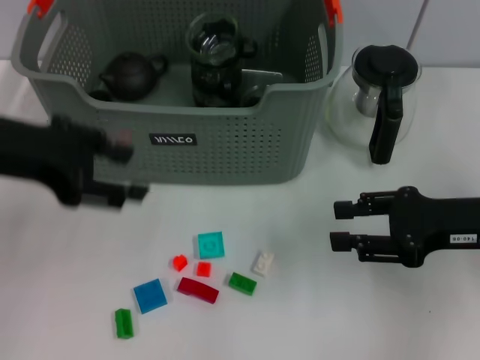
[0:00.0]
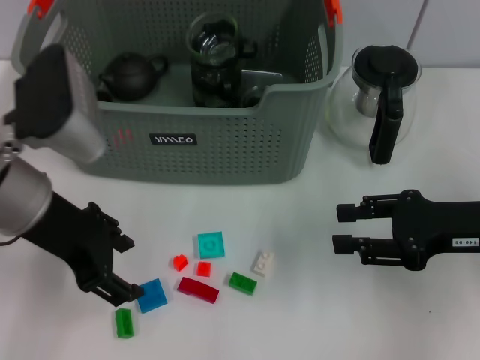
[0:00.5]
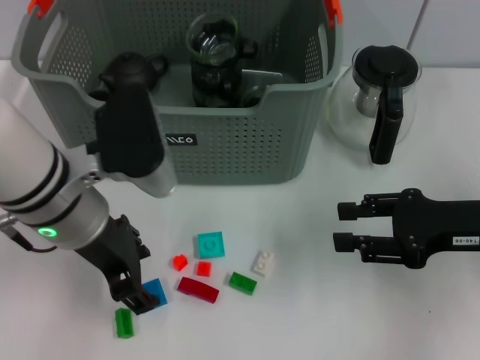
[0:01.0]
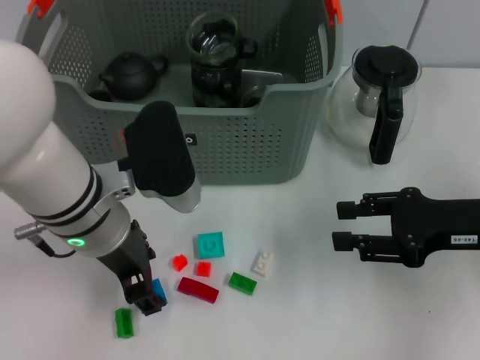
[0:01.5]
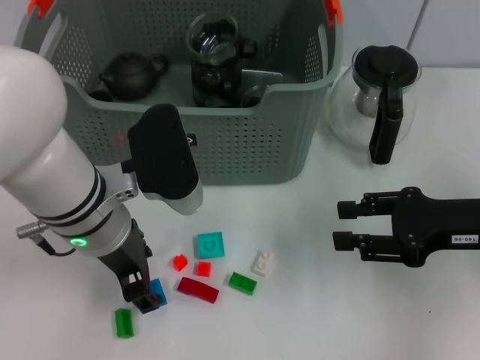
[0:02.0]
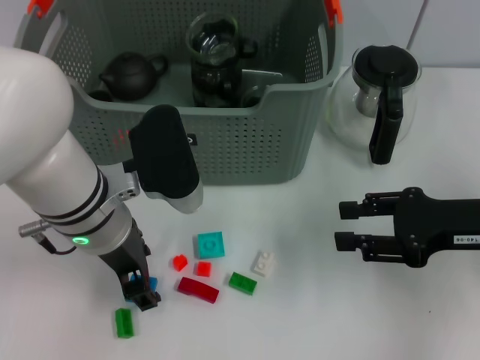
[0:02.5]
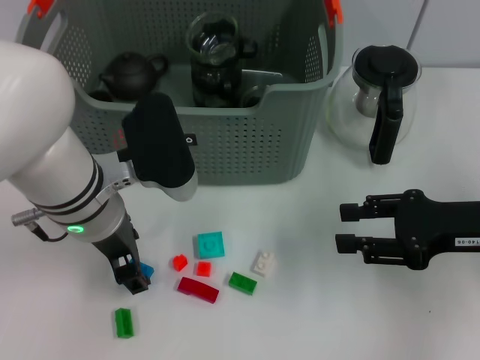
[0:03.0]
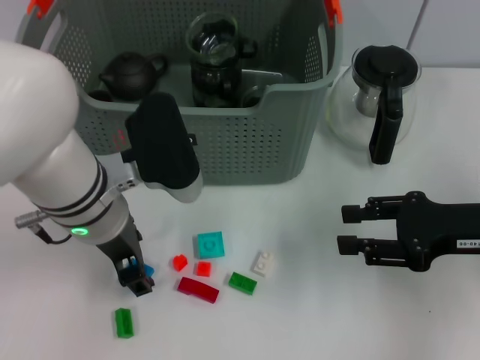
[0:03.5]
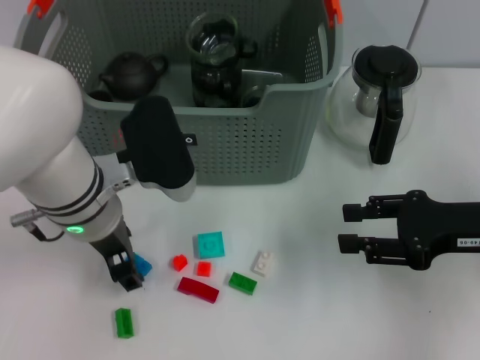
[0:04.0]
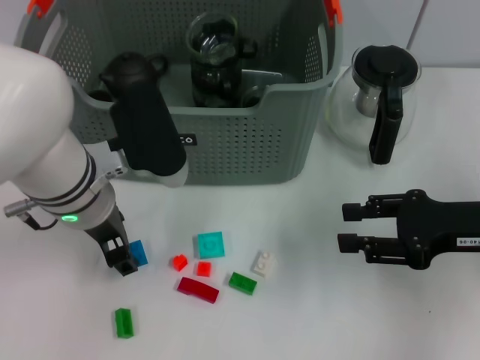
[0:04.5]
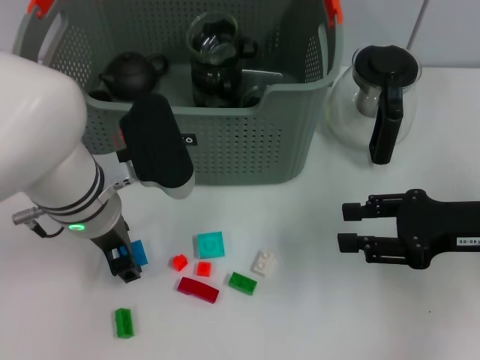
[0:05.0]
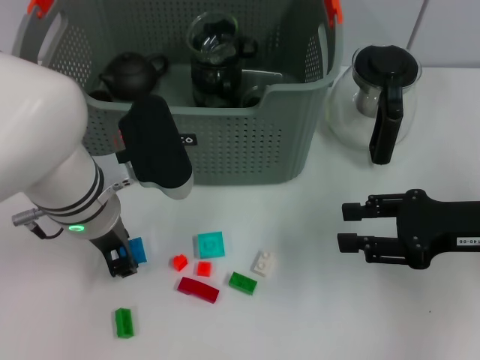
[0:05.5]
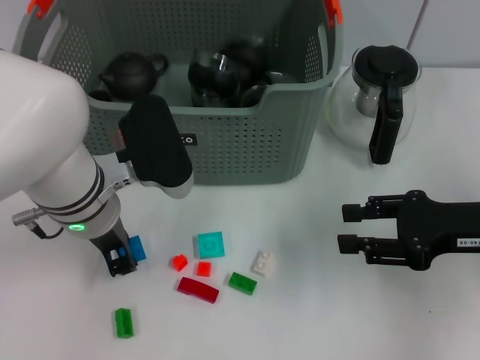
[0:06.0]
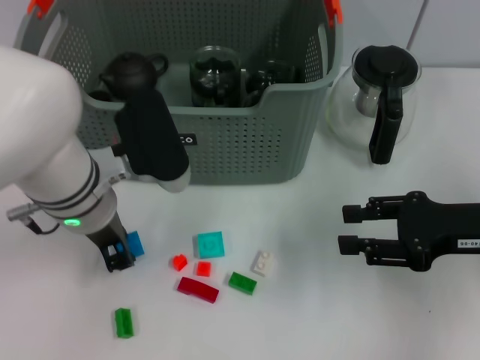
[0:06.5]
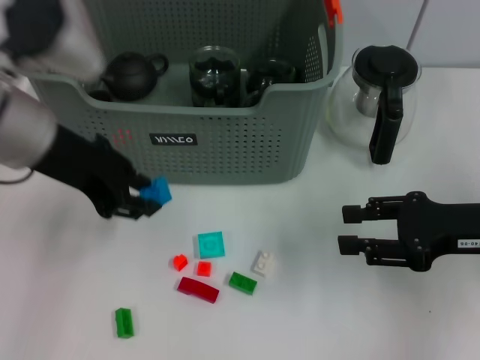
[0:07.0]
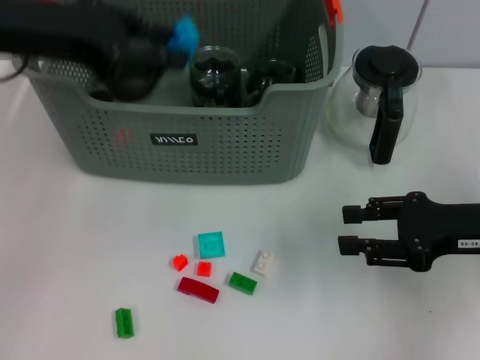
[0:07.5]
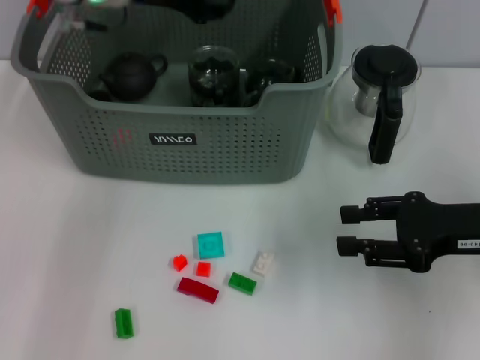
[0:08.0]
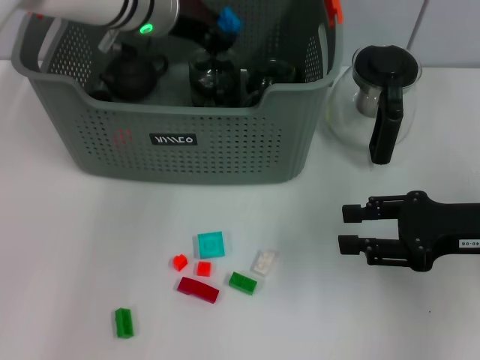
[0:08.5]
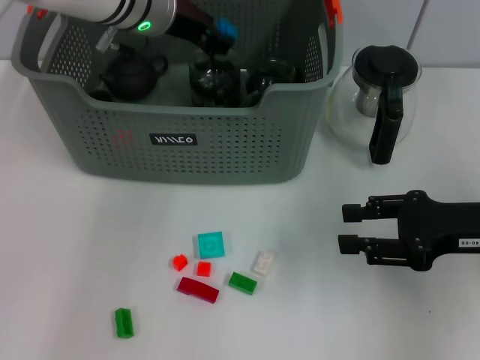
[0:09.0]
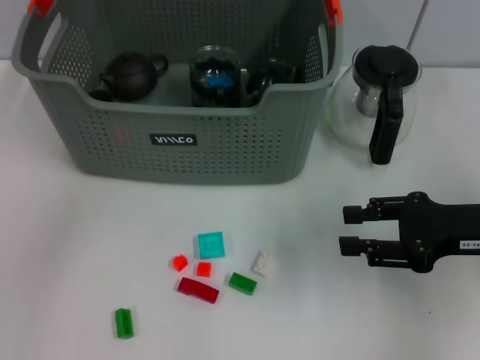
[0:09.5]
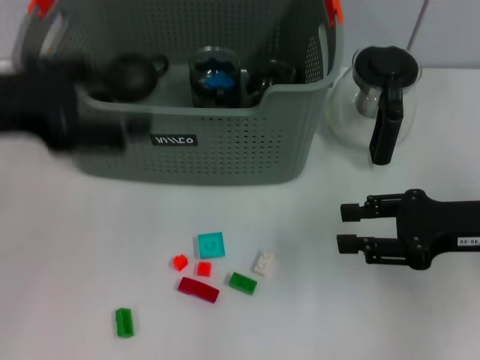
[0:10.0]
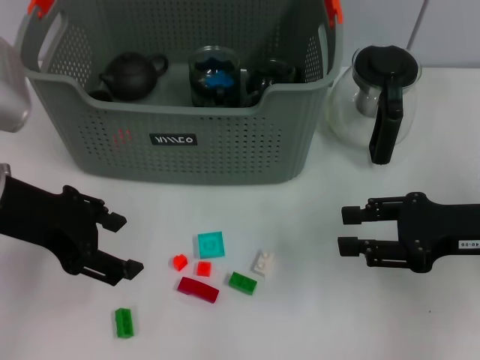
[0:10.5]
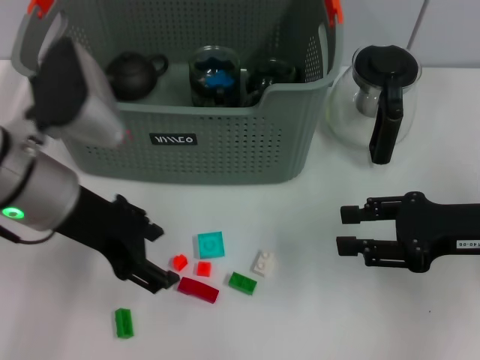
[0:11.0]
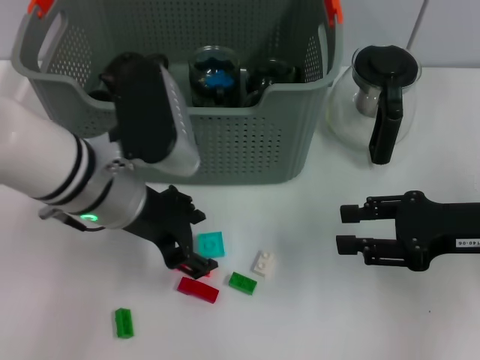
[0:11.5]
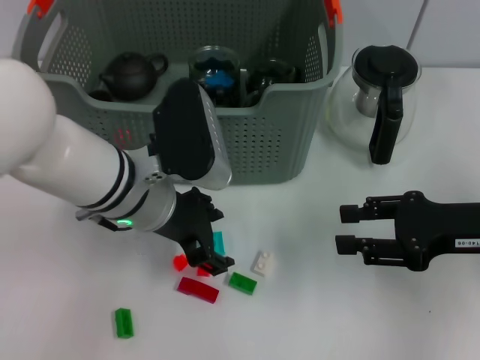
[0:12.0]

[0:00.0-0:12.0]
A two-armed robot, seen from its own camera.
Task of the whole recording: pick up the teacup on the table and place it into the storage bin, pick up the block on the table and place it into the storage bin.
Step, 0.0 to 5.5 s: Grasp the dark blue block with left gripper.
Step, 6.0 to 9.0 s: Place the dark blue block in the storage box with left gripper.
0.0 to 2.0 s: The left gripper shifts about 15 cm to the right and downward.
2.0 to 4.0 s: The grippers move only a little.
4.0 to 6.0 s: The left gripper closes.
6.0 to 8.0 s: The left gripper shifts approximately 15 cm upward and forward.
8.0 to 10.0 s: The left gripper moves backward and to the left, some 20 cm, and opens.
10.0 to 12.0 s: The left gripper travels to the right and downward by about 20 cm.

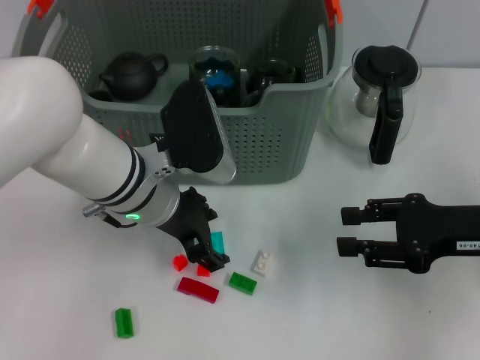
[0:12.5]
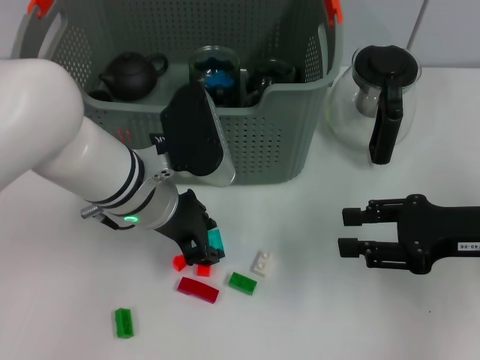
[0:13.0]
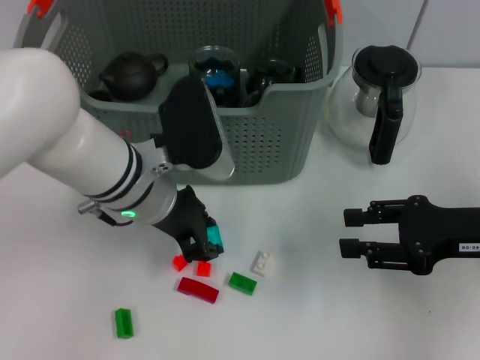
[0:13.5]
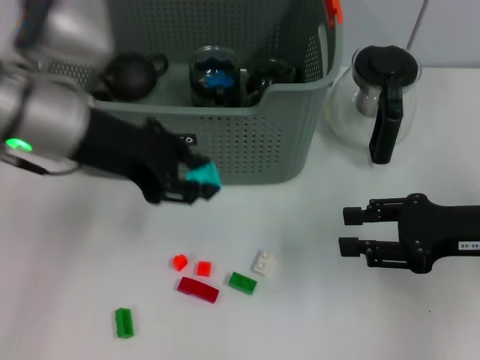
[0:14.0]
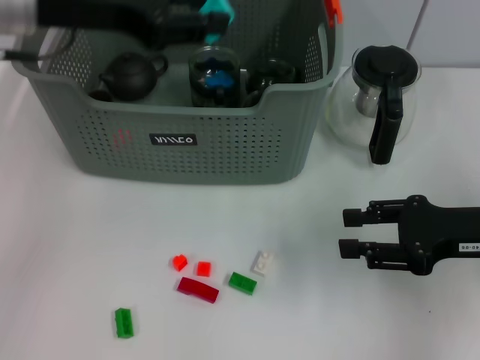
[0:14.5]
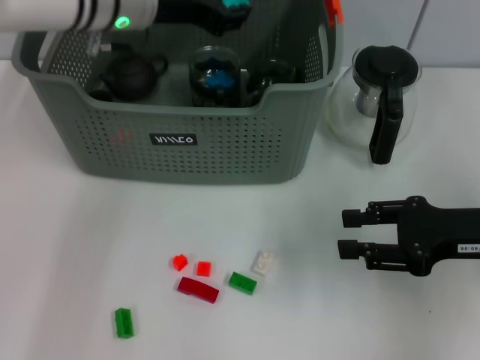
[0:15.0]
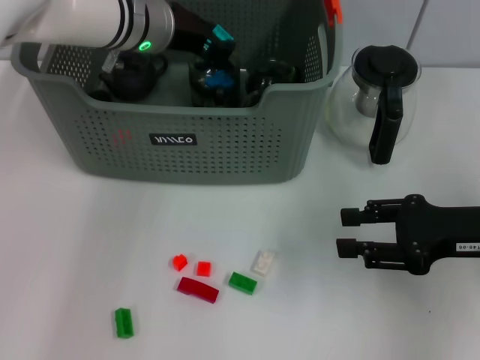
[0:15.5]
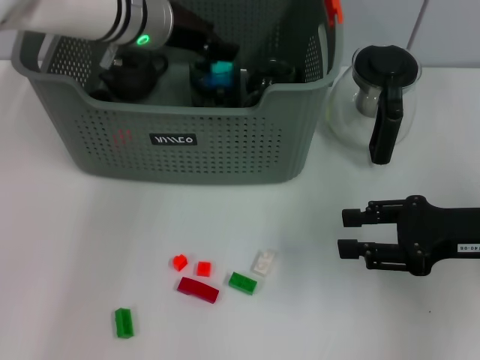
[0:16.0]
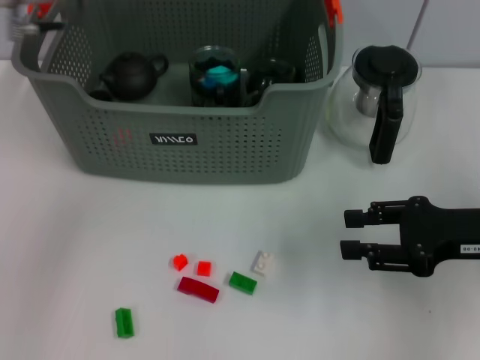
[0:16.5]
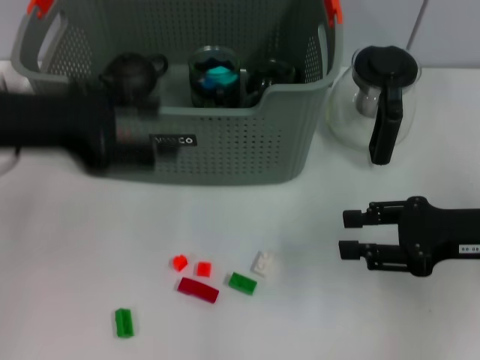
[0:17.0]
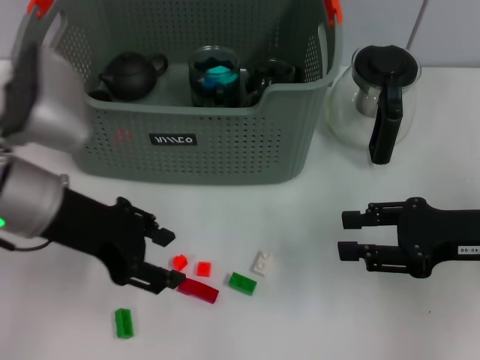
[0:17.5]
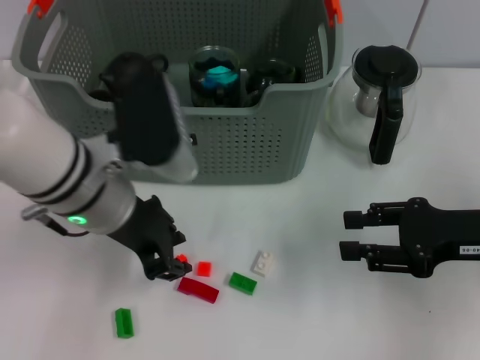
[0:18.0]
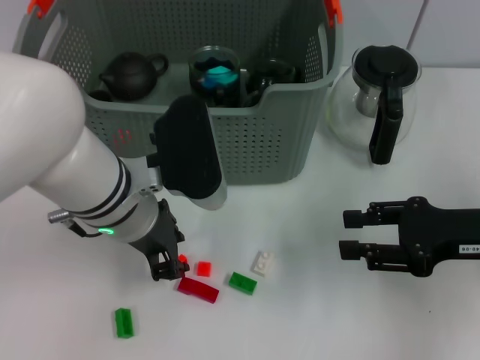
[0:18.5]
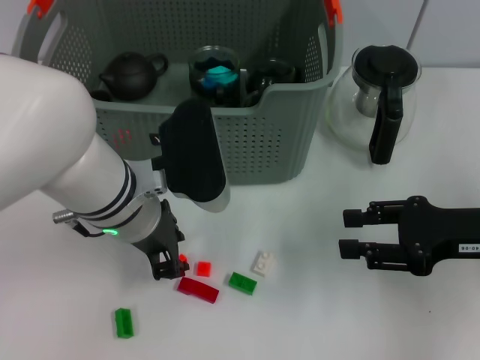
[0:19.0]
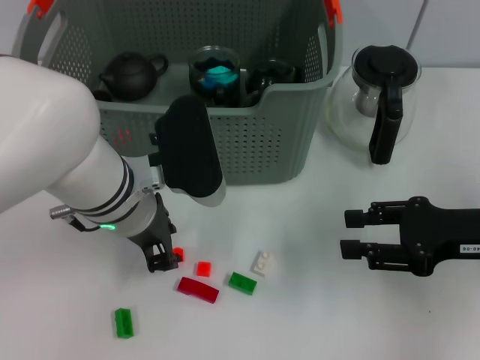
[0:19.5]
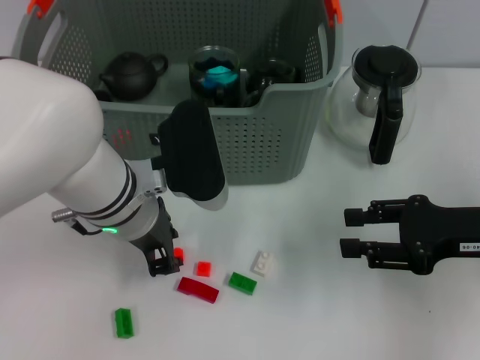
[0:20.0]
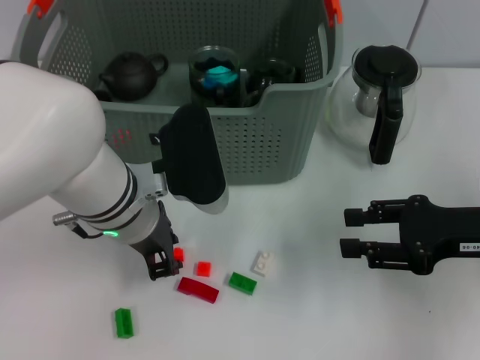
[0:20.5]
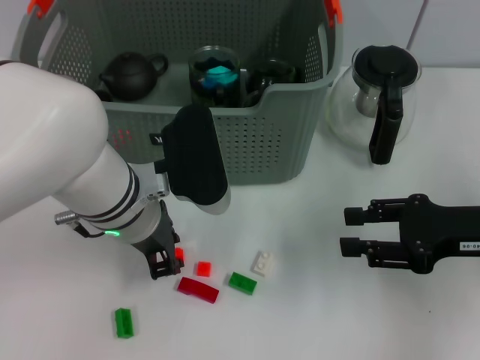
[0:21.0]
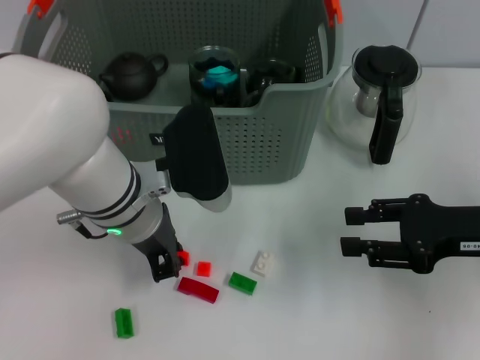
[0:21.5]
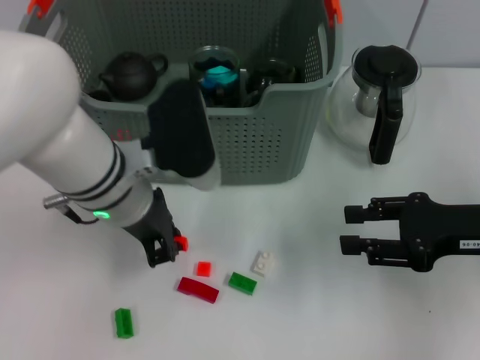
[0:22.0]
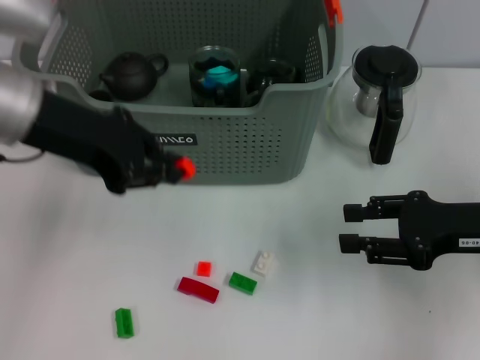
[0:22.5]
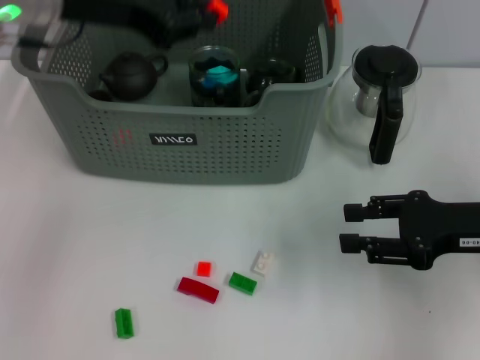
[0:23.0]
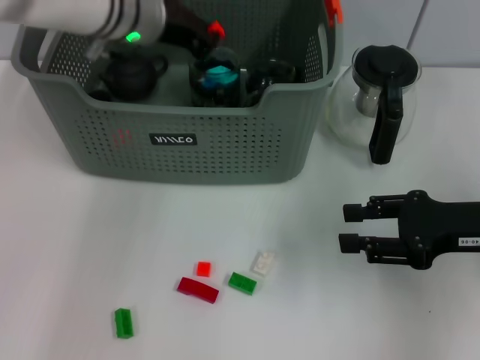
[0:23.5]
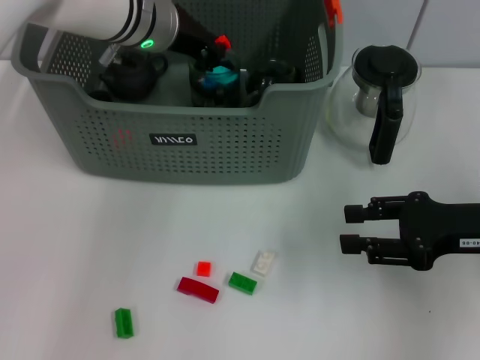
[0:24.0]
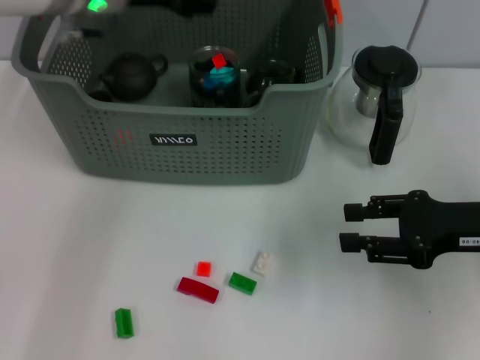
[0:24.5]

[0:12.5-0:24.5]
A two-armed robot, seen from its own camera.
Task of the whole recording: pick up the teacup on the table and place it into the storage bin, pick up the block on the table and place it into the storage bin.
Step, 13.5 to 16.0 s: Place the light blue block in the storage box with left gripper.
Step, 16.5 to 21.0 s: Grasp the orange block with left gripper.
Step, 21.5 to 24.0 s: Place the orange block in the storage box with left gripper.
12.5 to 14.5 s: The left gripper travels upward and to the left by about 20 cm, and closes up.
14.5 to 16.5 s: The left gripper goes forward and returns, about 10 cm each way.
16.5 to 18.5 s: The left gripper heads downward, backward and to the right, covering approximately 15 cm.
18.5 to 20.5 s: Neither gripper changes place.
20.5 to 22.5 s: The left gripper is displaced upward and to the left by approximately 15 cm.
22.5 to 24.5 s: The left gripper goes about 10 cm forward and to the right, and opens its fingers.

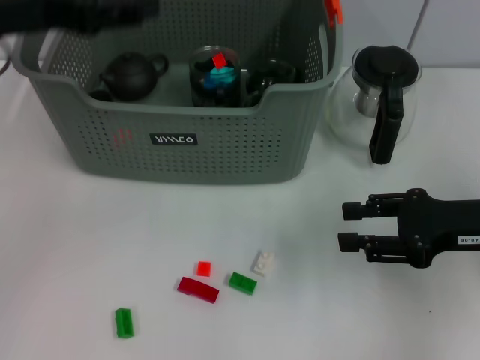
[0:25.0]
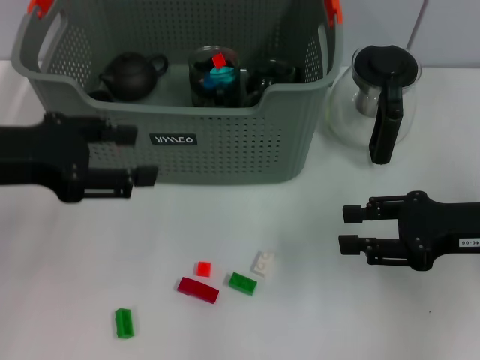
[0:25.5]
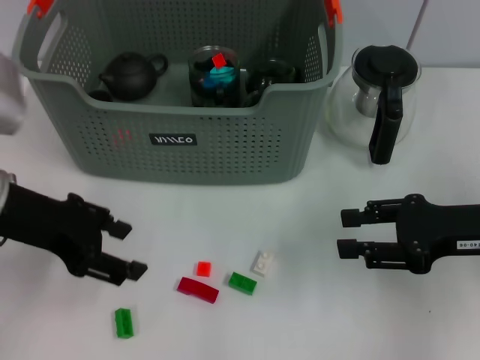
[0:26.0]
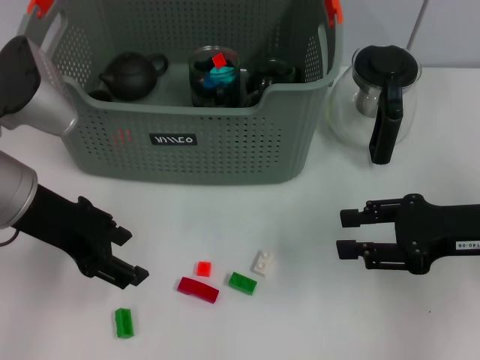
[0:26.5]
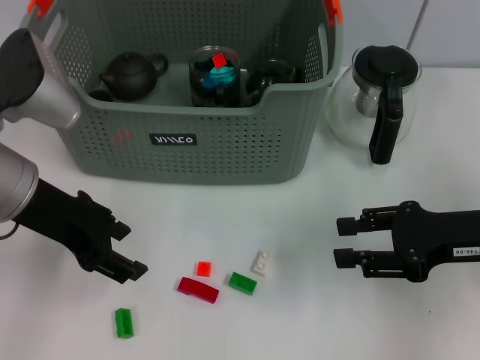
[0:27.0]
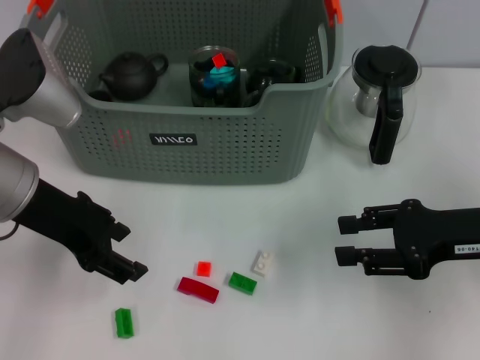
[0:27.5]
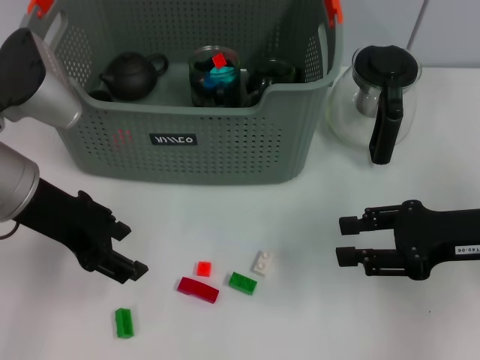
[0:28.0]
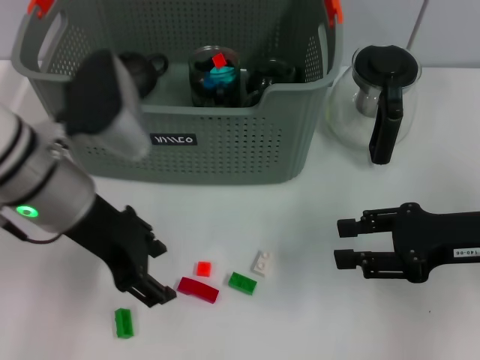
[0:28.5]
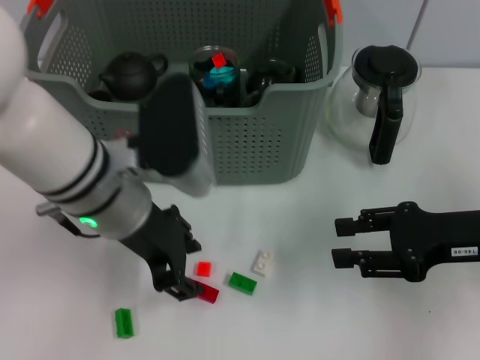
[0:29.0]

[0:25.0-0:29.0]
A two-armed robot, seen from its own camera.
Task of the whole recording: pick up the teacup on the table and place it into the storage bin, pick up the block on the table and place it into the storage bin.
25.0 to 27.0 s: The left gripper shifts roughly 5 cm downward.
27.0 to 29.0 s: The left gripper moves to the right, some 10 cm.
